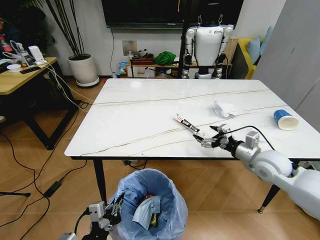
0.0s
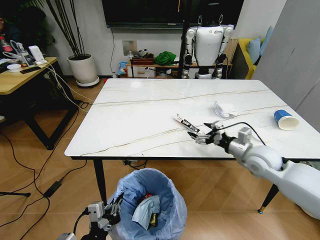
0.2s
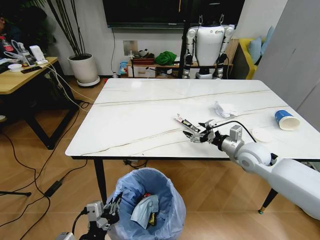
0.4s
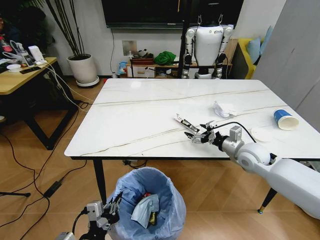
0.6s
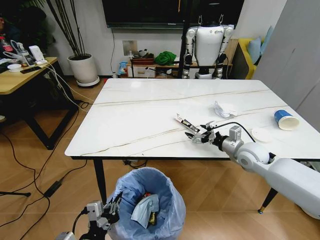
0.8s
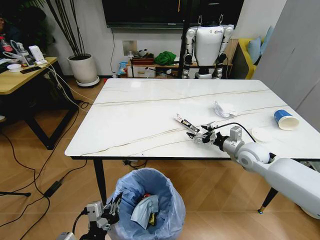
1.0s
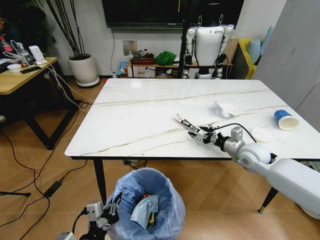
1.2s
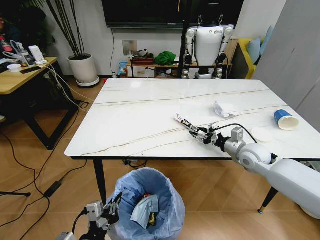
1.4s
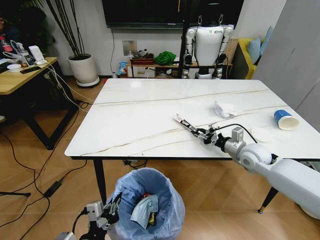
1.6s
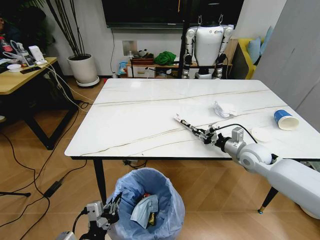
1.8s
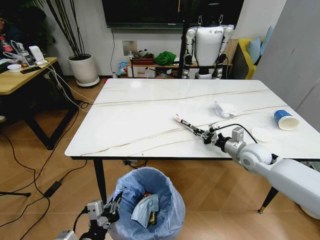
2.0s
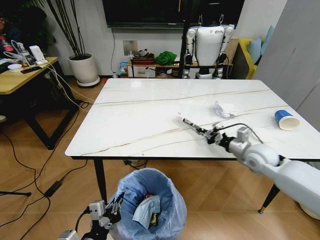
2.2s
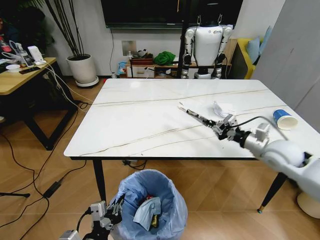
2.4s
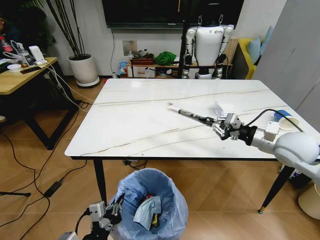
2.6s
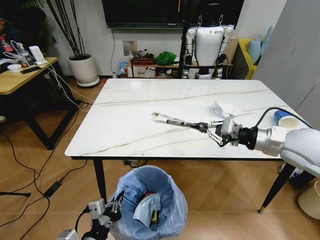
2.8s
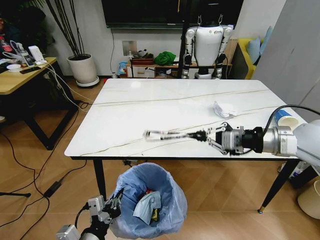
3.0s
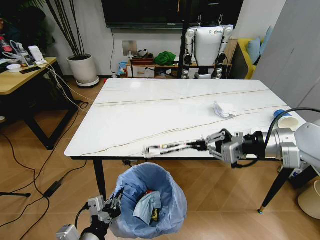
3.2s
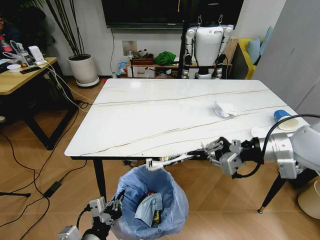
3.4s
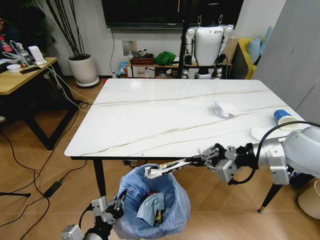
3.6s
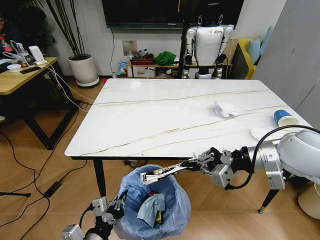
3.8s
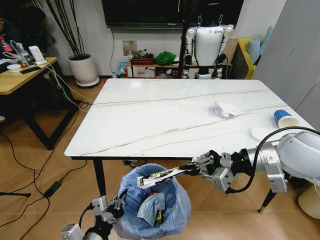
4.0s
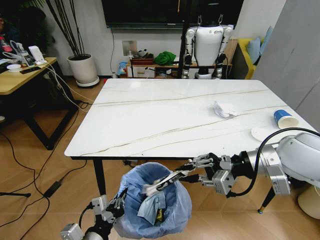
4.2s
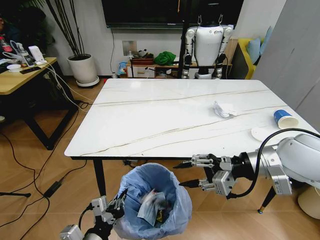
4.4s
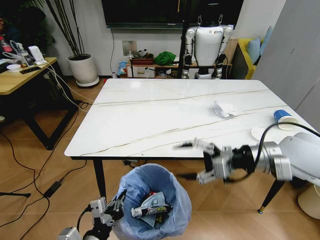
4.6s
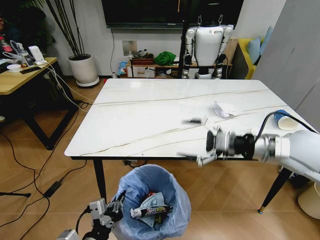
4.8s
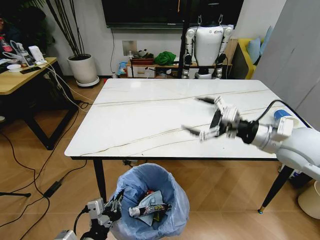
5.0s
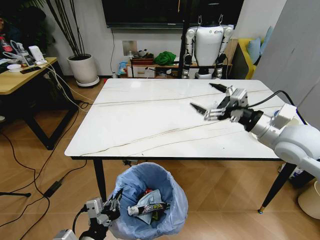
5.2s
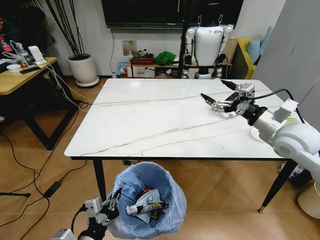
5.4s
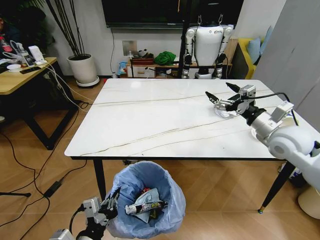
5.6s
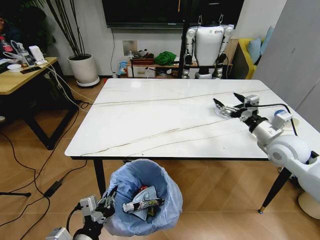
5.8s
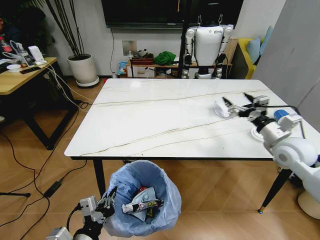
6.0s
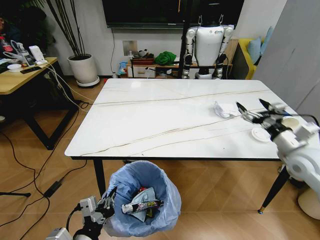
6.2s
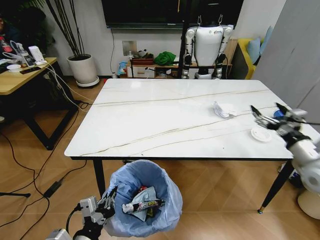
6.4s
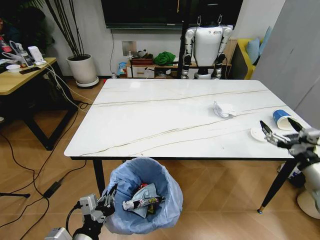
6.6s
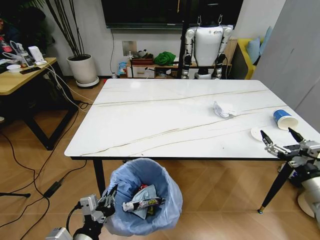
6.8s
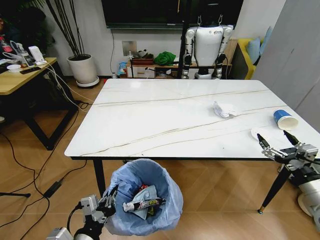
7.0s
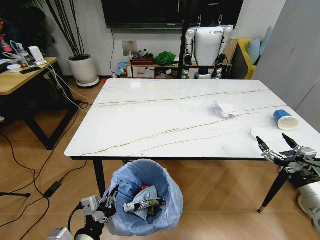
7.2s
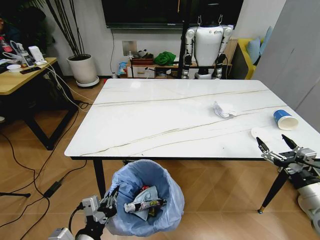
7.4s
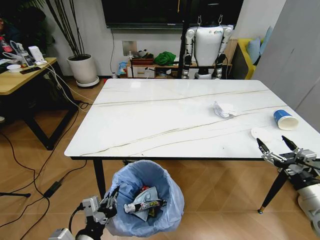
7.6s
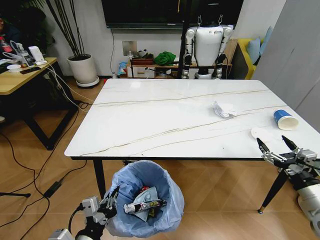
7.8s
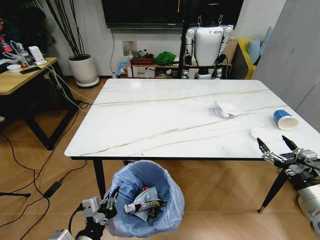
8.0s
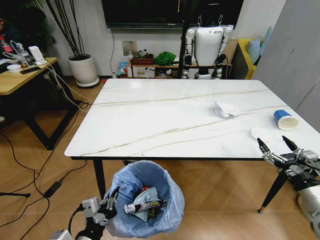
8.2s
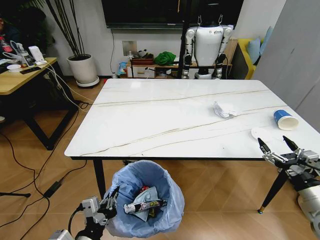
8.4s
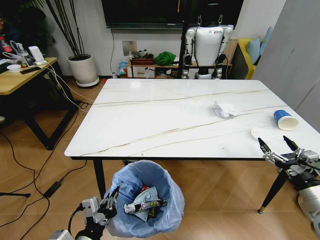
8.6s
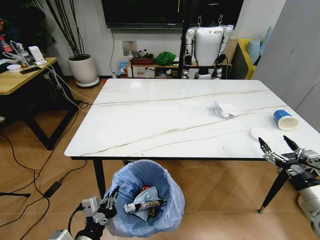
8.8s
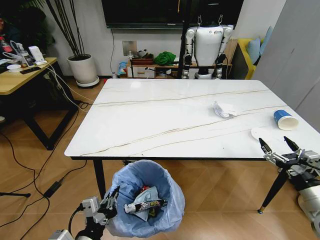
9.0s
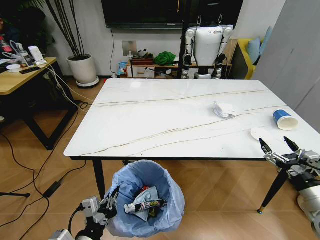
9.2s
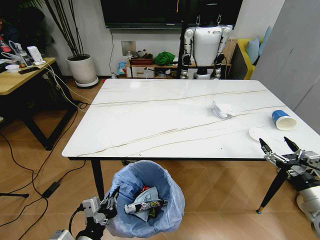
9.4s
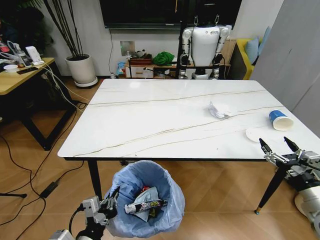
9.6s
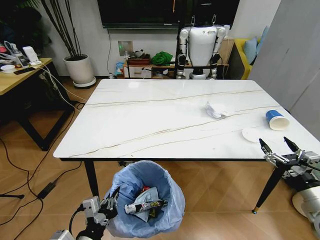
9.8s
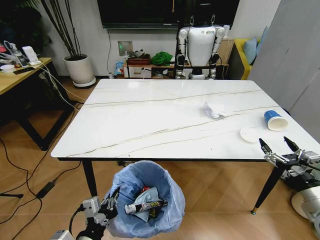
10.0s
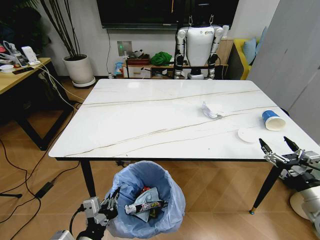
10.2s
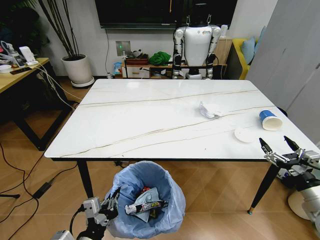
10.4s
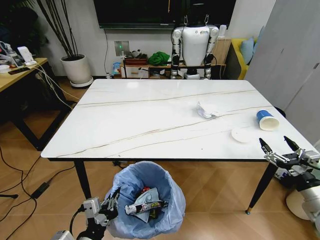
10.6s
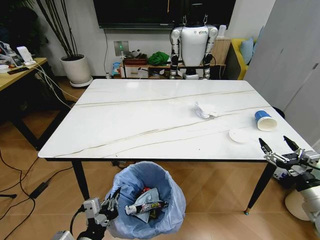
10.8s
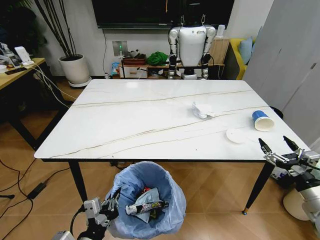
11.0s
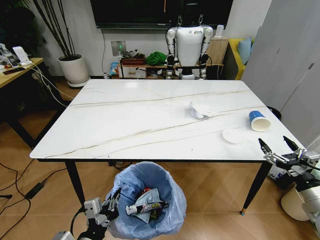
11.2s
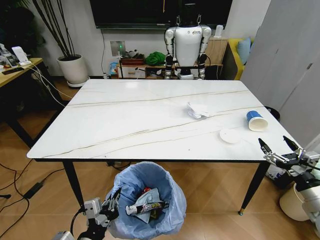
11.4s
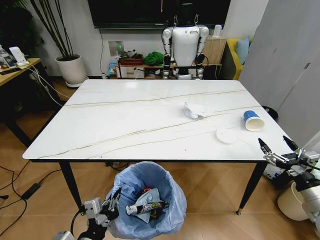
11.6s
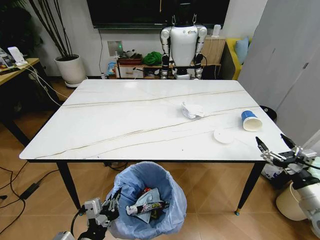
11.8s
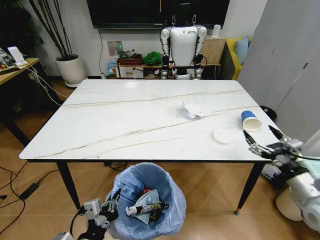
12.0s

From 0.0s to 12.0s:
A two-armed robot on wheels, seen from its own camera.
Task of the whole recording: Pick up the trash bin and place the trash from the table into it.
From 0.0s to 1.6s: The right gripper travels forward by approximately 5 cm, and closes.
From 1.6s to 3.0s: The right gripper goes approximately 20 cm upward and backward, and closes its fingers.
From 3.0s to 4.4s: The right gripper ends up about 5 cm from where it was, and opens.
From 4.4s to 6.0s: The right gripper heads to the right, downward and forward, covering about 15 cm, and opens up.
From 6.0s to 7.6s: The right gripper is displaced backward and downward by some 20 cm.
From 7.6s to 9.0s: The two grippers keep their place.

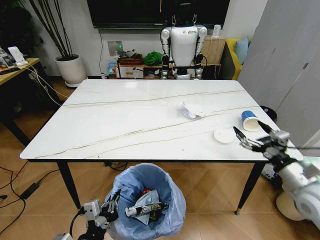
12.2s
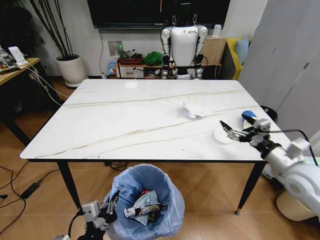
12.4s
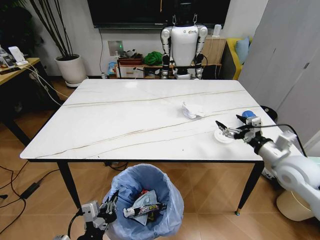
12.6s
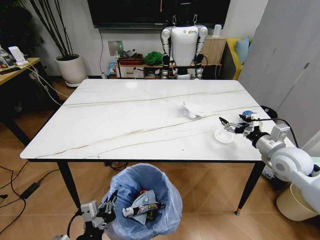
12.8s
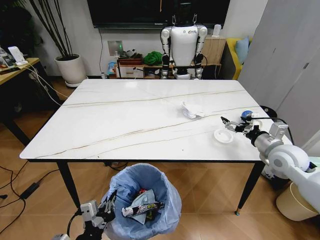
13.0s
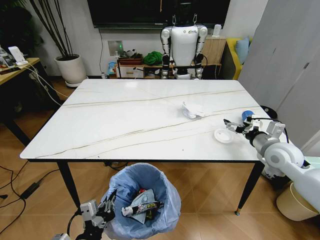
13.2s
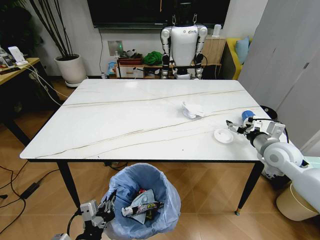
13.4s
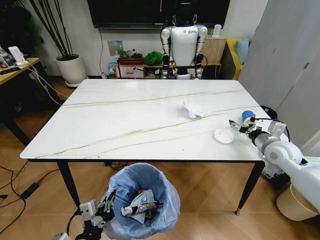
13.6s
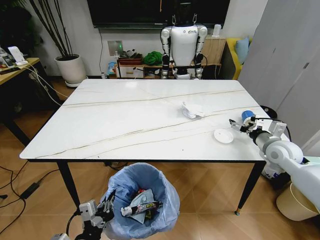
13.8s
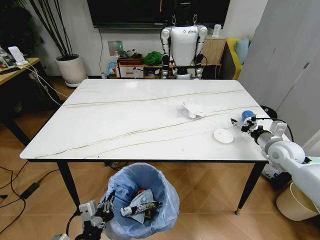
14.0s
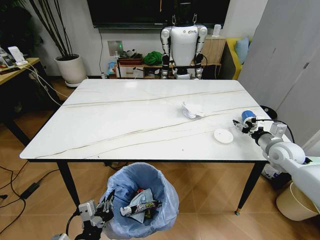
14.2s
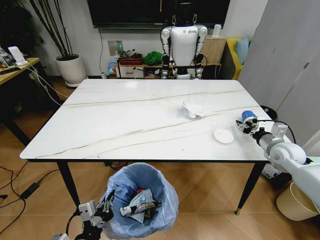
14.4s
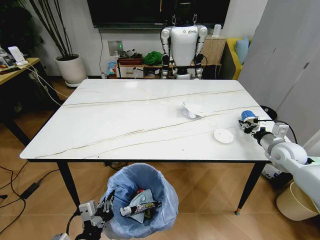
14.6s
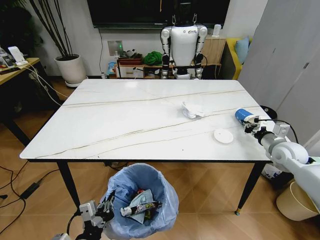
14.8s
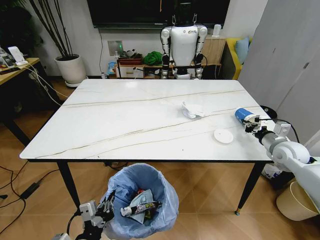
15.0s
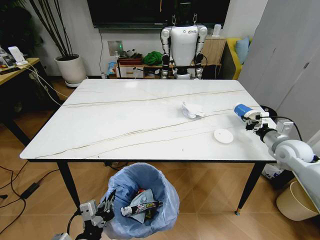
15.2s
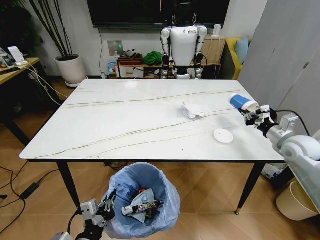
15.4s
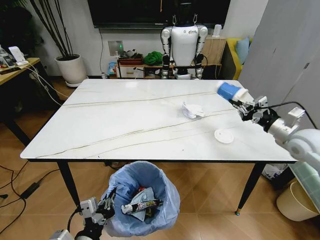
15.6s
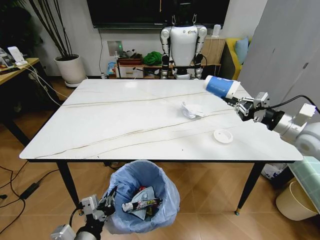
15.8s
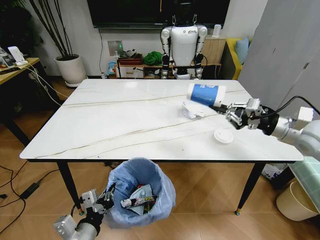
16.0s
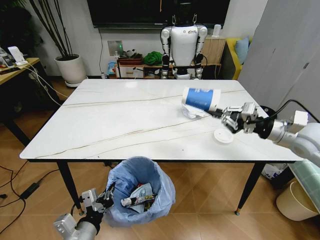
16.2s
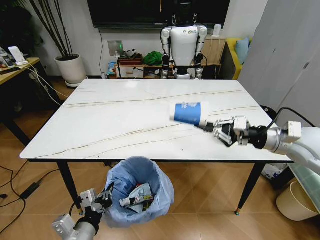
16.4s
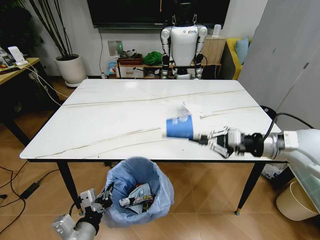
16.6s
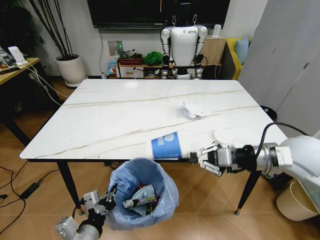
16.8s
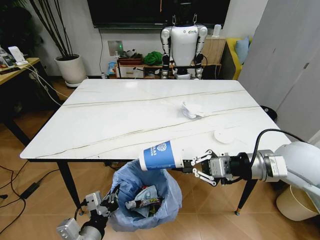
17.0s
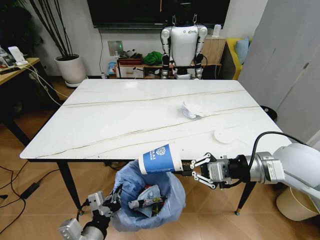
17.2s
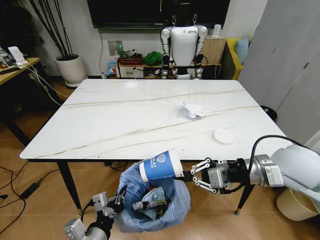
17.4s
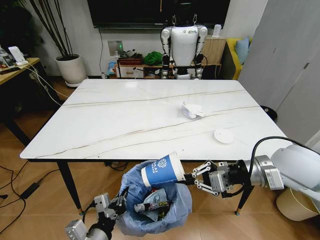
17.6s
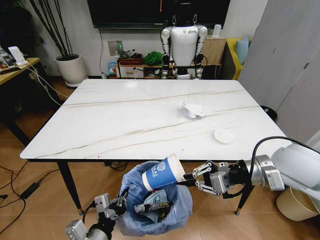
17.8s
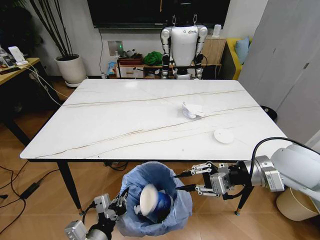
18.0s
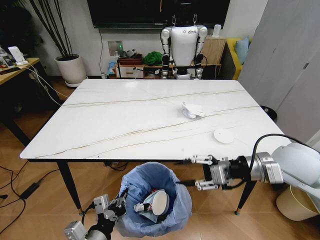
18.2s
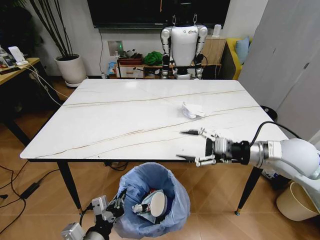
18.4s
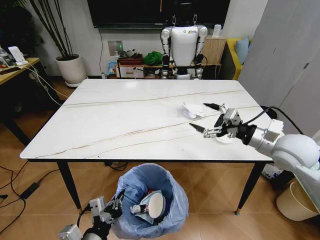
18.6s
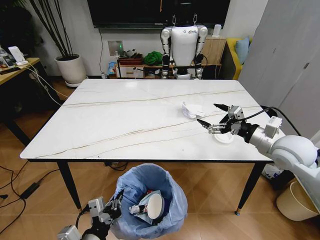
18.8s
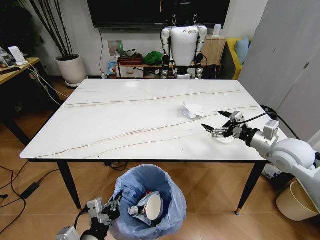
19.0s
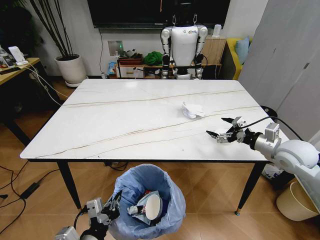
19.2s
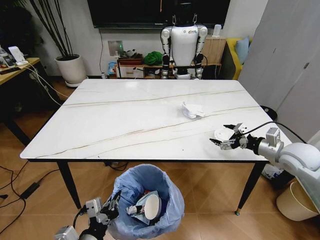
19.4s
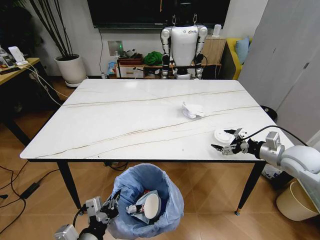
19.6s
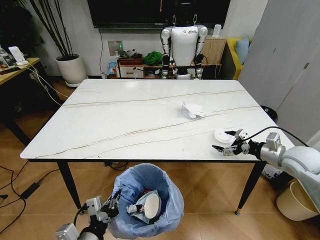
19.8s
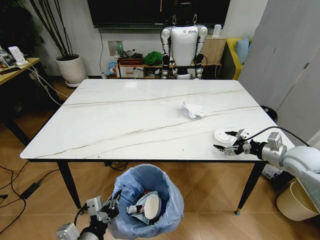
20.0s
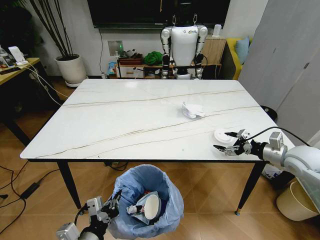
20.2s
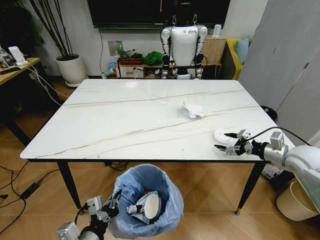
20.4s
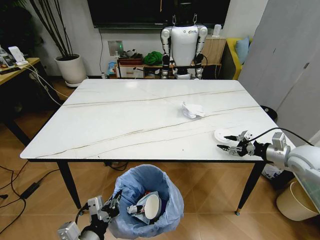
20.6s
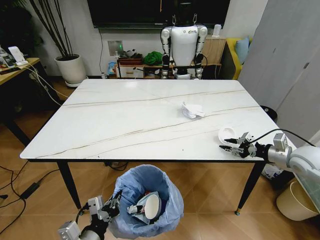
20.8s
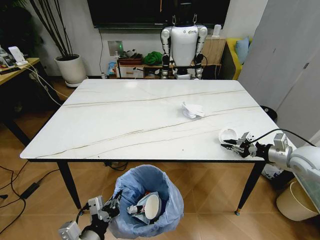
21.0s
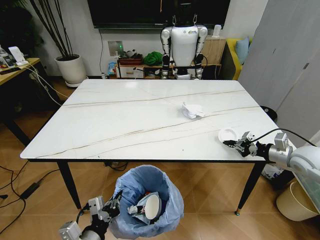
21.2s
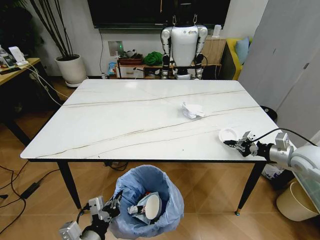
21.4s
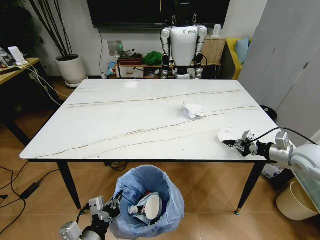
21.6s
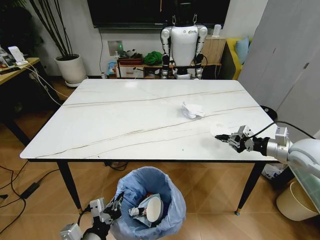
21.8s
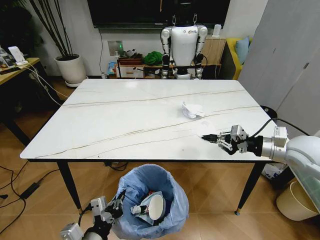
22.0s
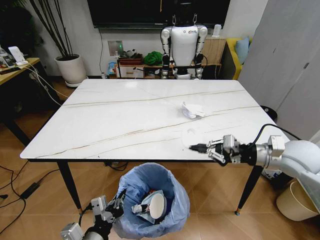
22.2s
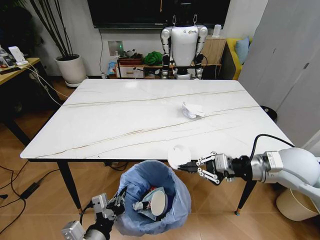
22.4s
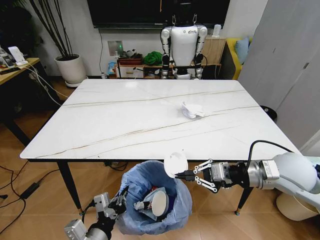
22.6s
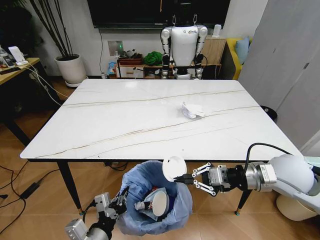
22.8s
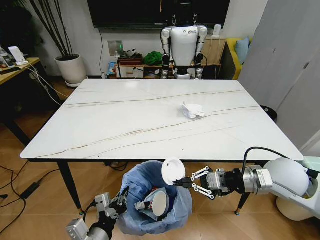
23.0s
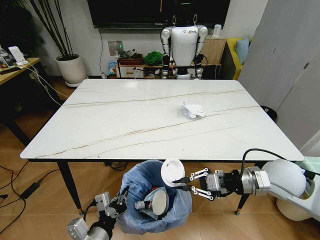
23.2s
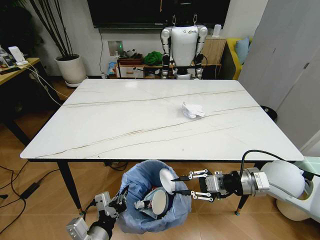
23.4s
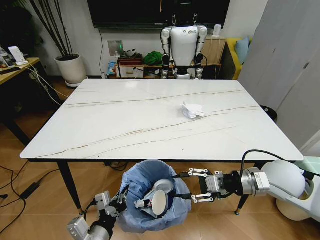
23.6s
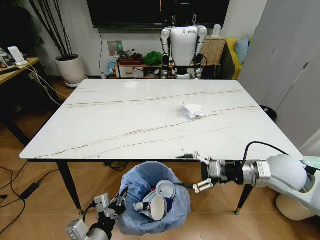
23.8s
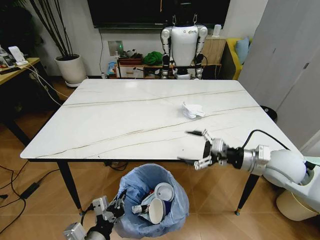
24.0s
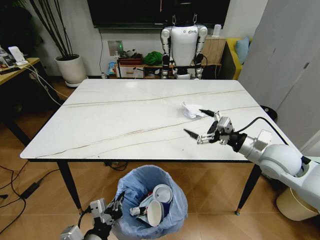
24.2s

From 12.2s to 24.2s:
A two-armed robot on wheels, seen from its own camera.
Task of the whole recording: Pick up the trash bin and place the trash from the table into it.
From 12.2s to 13.8s: The right gripper is displaced forward by roughly 20 cm.
From 13.8s to 15.2s: The right gripper closes.
From 15.2s to 16.6s: The right gripper shifts roughly 15 cm upward, to the left and backward.
From 16.6s to 18.2s: The right gripper shifts by approximately 5 cm, and opens up.
From 18.2s to 19.8s: The right gripper travels to the right, downward and forward by about 15 cm, and opens.
From 19.8s to 21.2s: The right gripper closes its fingers.
From 21.2s to 22.6s: The right gripper shifts roughly 15 cm to the left and backward.
From 22.6s to 24.2s: The right gripper goes some 5 cm forward, and opens up.
